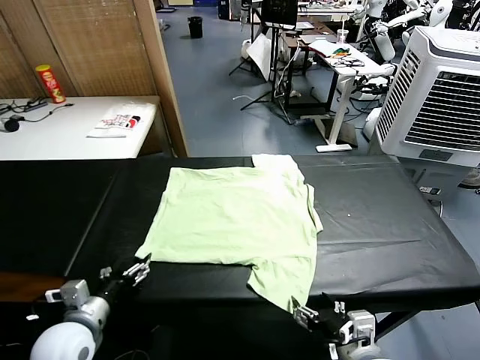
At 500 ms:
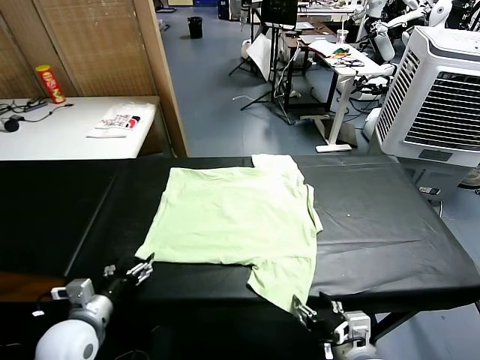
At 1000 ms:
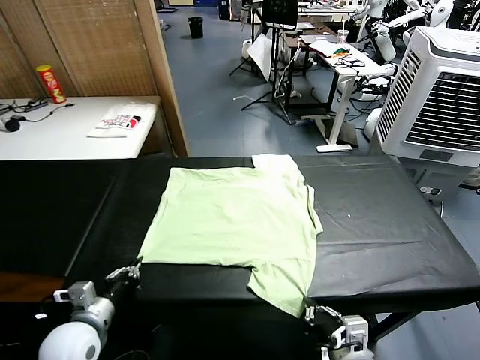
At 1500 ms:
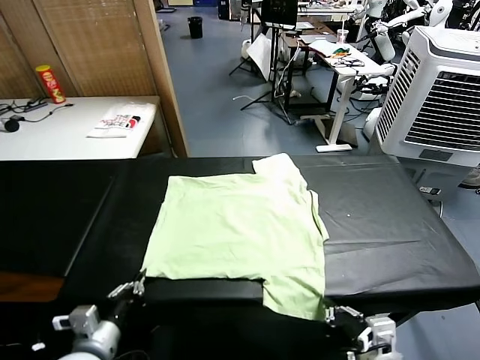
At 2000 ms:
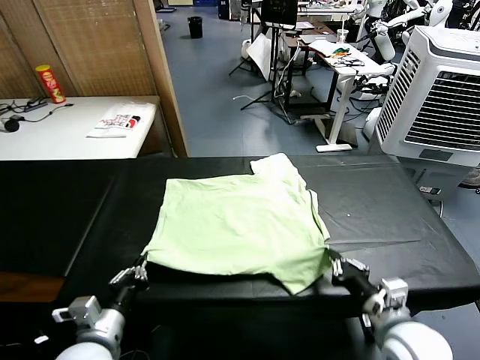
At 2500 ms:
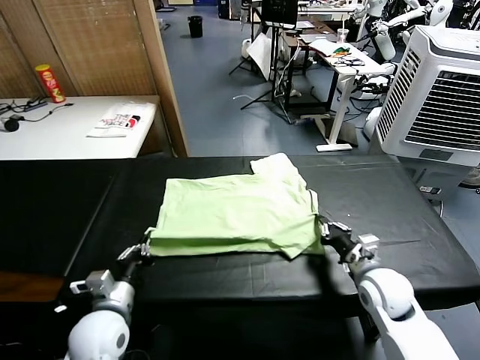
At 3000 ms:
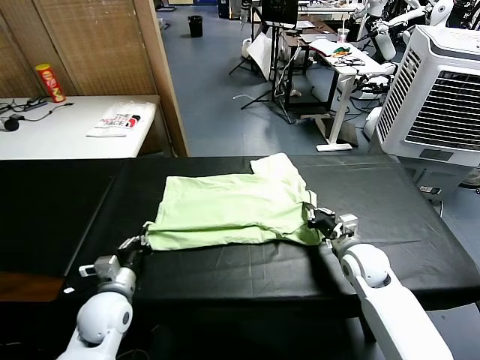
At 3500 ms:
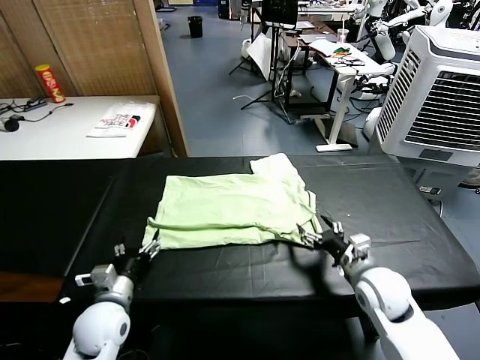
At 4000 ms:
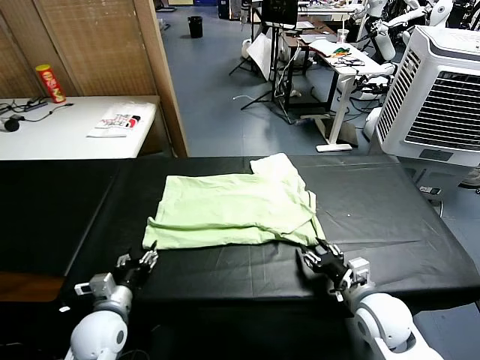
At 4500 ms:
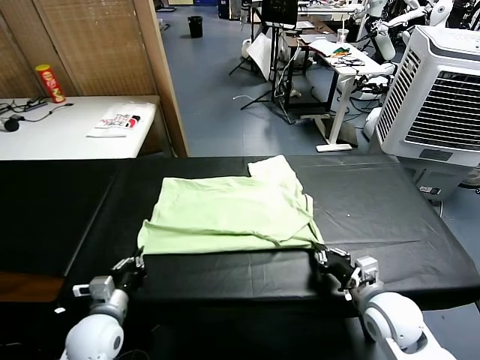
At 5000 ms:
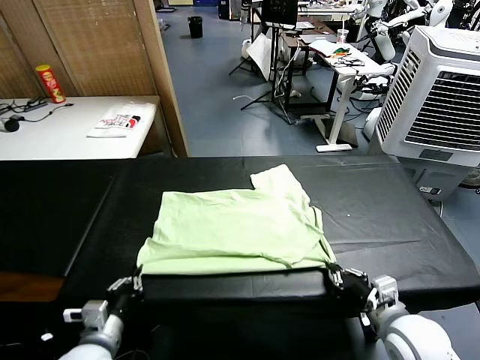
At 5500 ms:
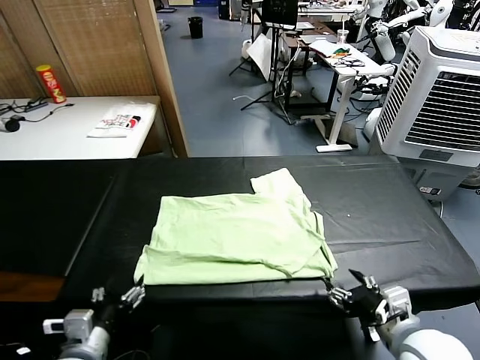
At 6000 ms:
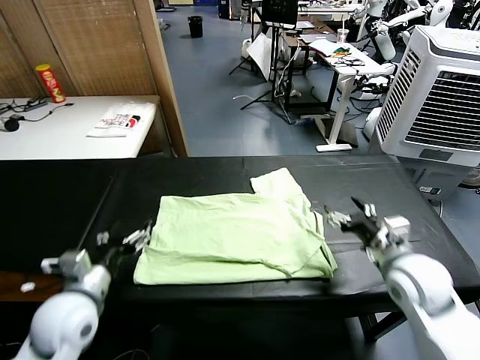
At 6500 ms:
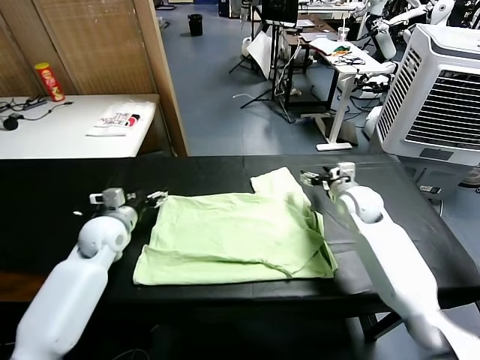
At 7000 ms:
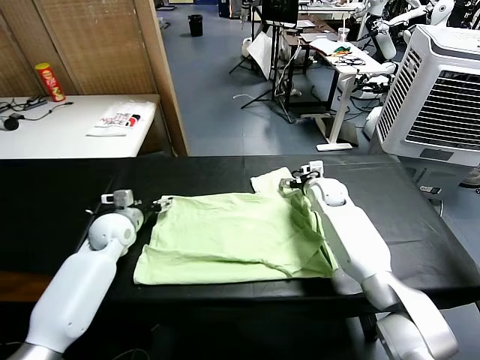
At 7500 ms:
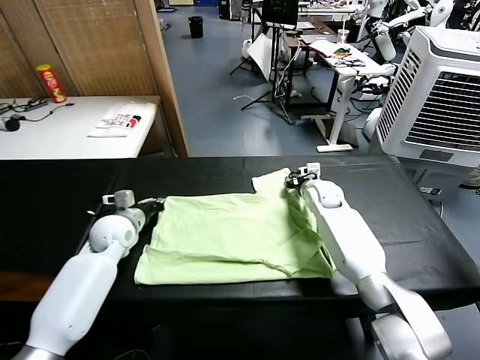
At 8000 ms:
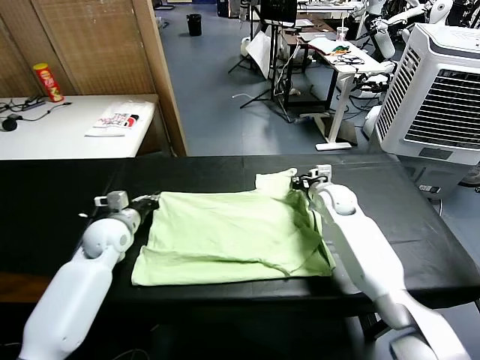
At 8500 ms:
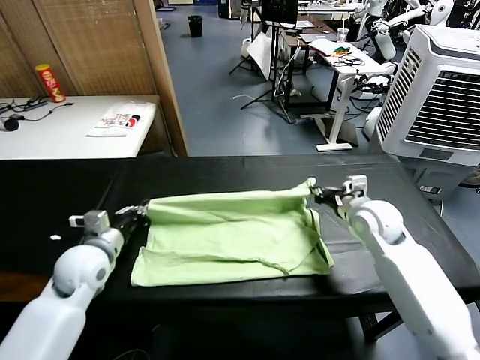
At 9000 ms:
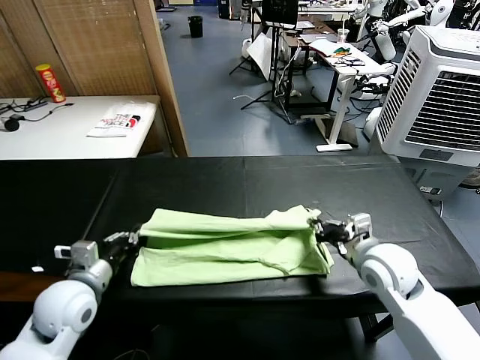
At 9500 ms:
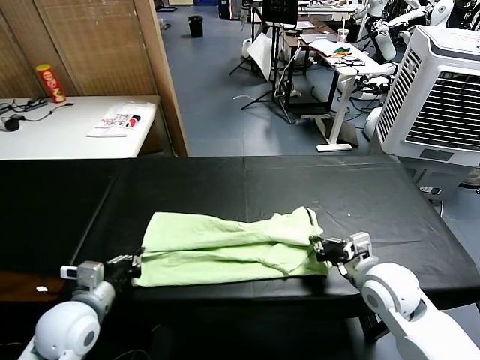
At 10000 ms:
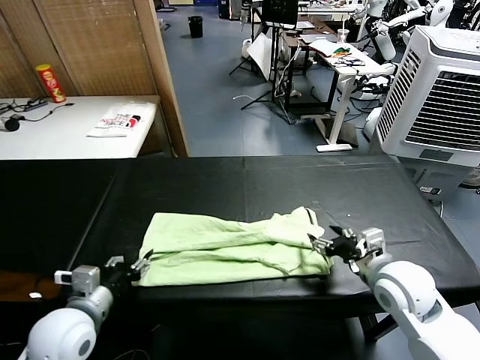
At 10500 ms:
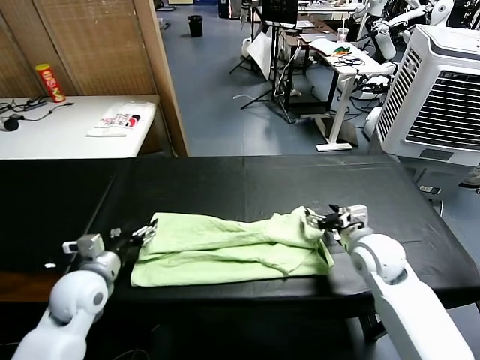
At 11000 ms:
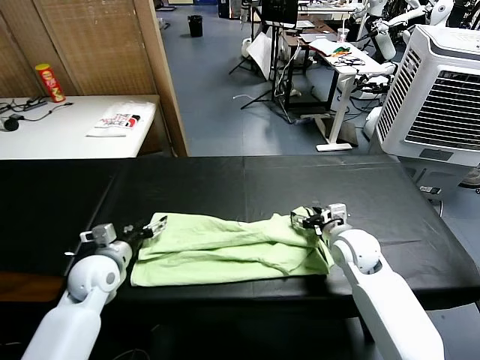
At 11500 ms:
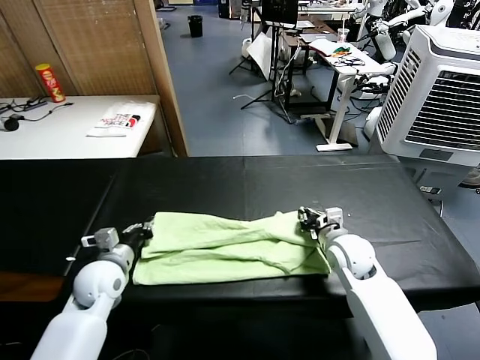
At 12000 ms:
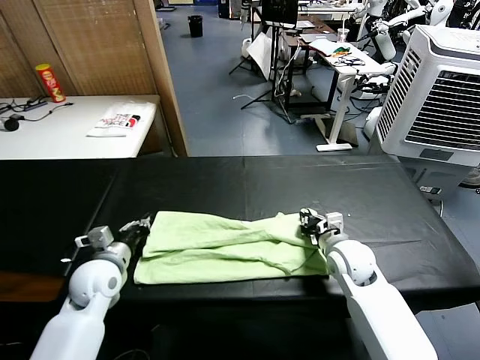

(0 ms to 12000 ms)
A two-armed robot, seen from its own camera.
Task of the whole recording: fold and organize the clothes.
Step, 0 ms - 1000 ms: use both grippers simultaneously to clamp the lower edge of the clothing fabric.
Step, 1500 ms - 3000 ms: use both grippers to drag the lower edge of the fabric forward and fold it over the upper edge.
Step, 3500 ms - 5500 ms: Drag the clothes downward with both gripper.
Step, 6000 ms - 7500 ms: use both grippers simultaneously to clamp the upper edge of the clothing fabric.
Step, 8000 ms - 10000 ms: use both grippers to drag the upper edge of the fabric backward and fold it over the lower edge.
2000 ms - 4000 ms: The right gripper reaches some 15 cm forward, then returns, and opens and closes again. The left gripper shifts approximately 10 cm downward and forward, and opens its fingers.
4000 ms - 6000 ms: The right gripper travels forward and upward by about 15 cm, and opens up; the left gripper heads upward, covering approximately 10 cm, reaches about 10 cm backward, then returns, and opens its fingers.
6000 ms - 8000 ms: The two grippers go some 15 cm forward. The left gripper closes up, while the right gripper closes.
8000 ms - 10000 ms: Both grippers travel together backward, some 20 cm. The right gripper opens up; the left gripper opens up.
10000 ms - 12000 ms: The left gripper is displaced forward by some 10 cm, and closes up. The right gripper goes about 15 cm forward, downward and to the left, and closes up.

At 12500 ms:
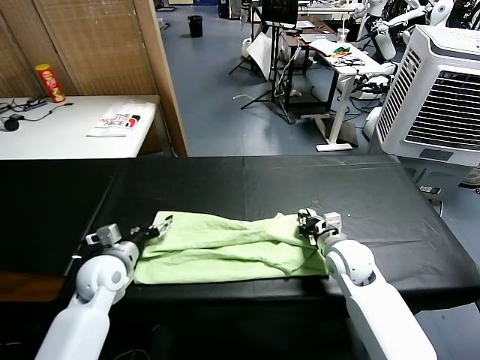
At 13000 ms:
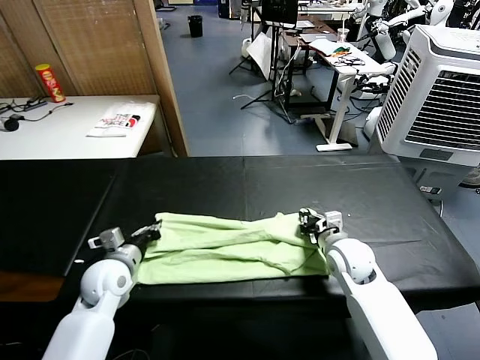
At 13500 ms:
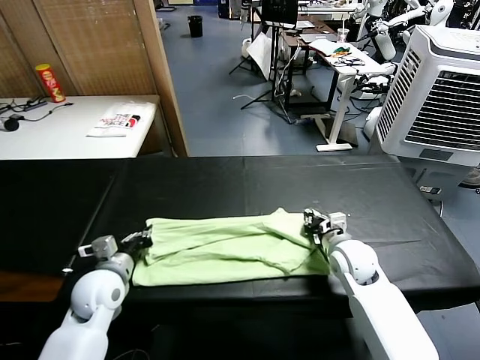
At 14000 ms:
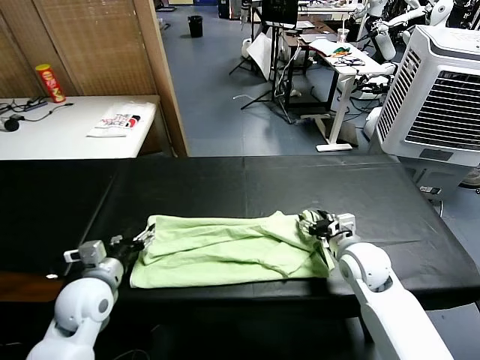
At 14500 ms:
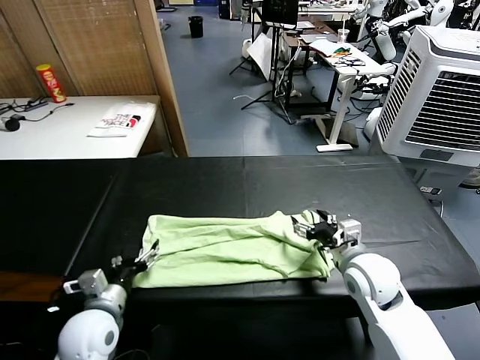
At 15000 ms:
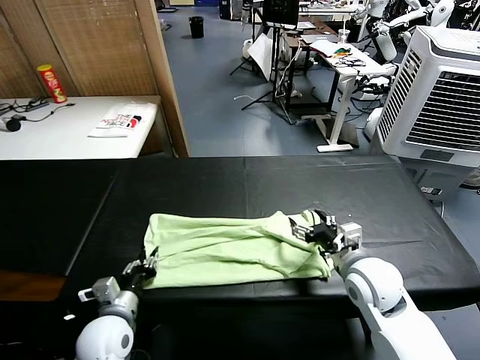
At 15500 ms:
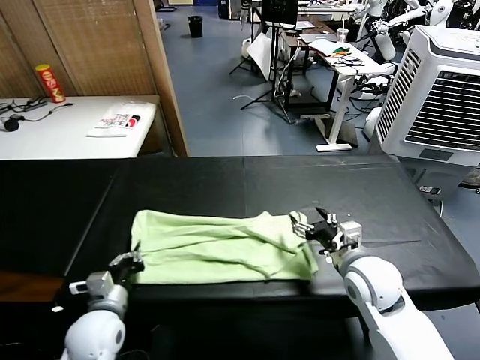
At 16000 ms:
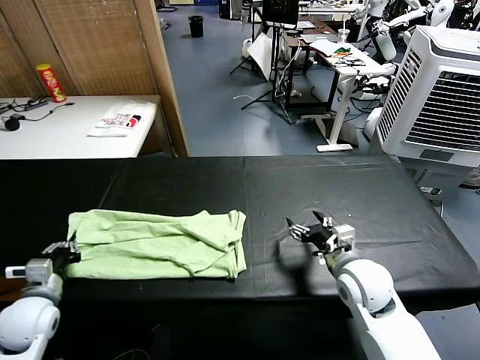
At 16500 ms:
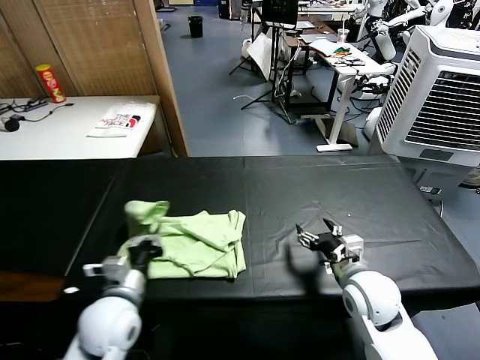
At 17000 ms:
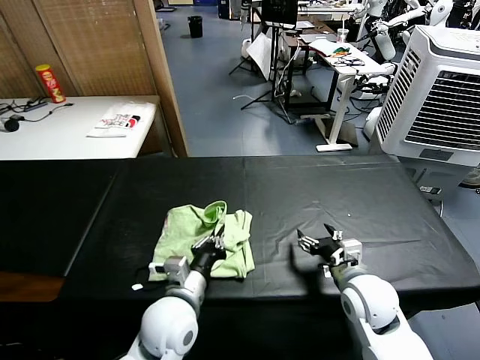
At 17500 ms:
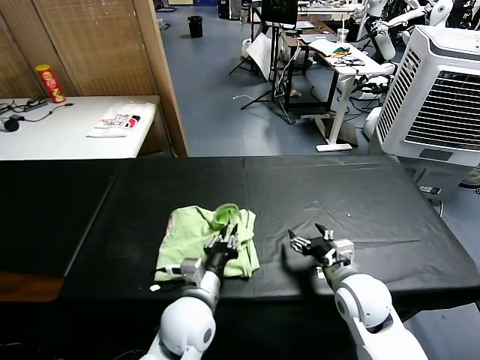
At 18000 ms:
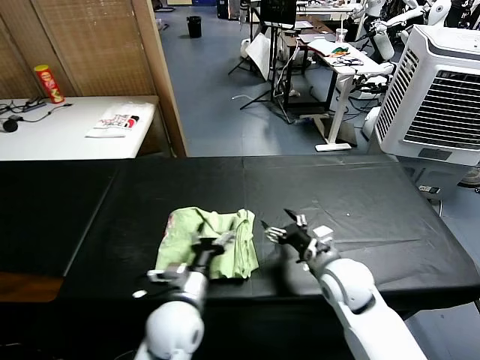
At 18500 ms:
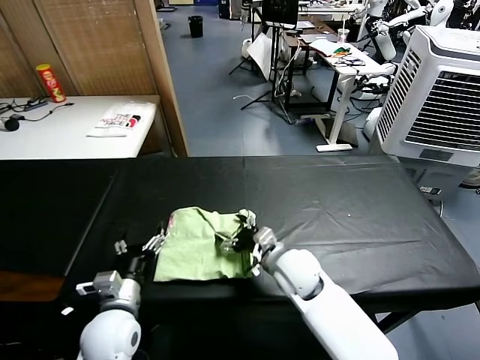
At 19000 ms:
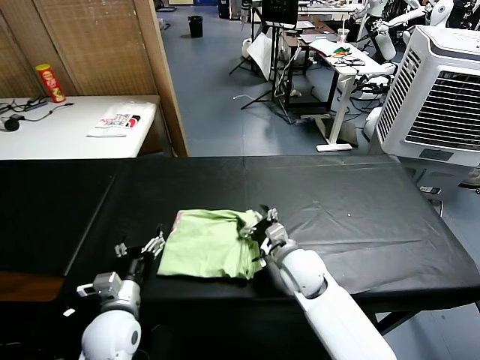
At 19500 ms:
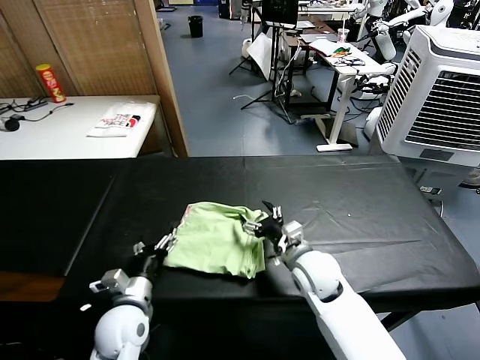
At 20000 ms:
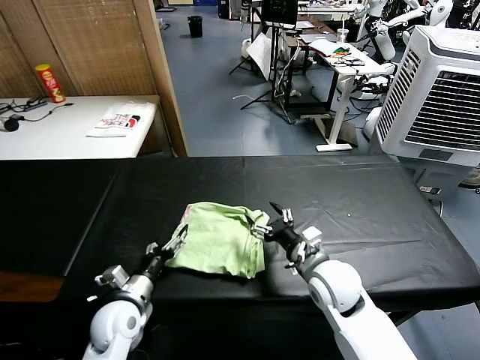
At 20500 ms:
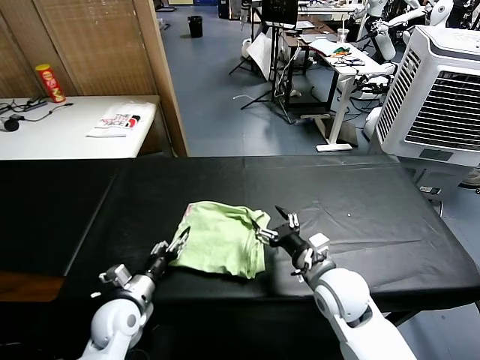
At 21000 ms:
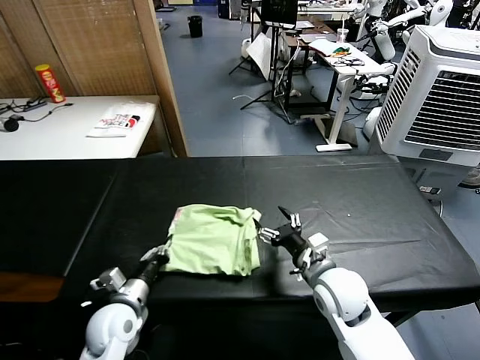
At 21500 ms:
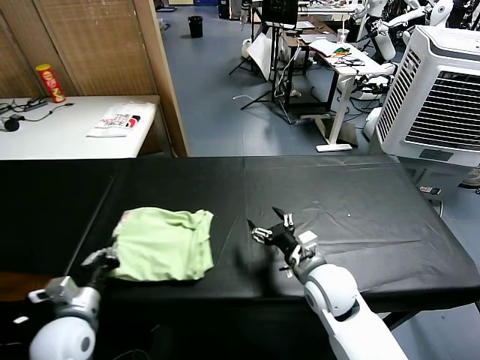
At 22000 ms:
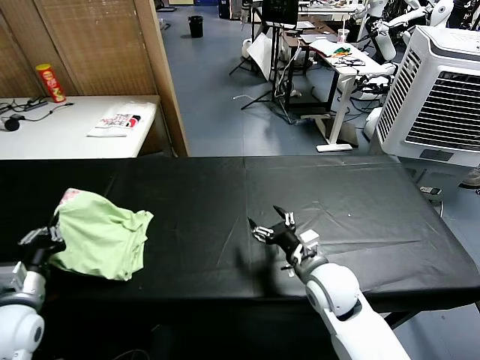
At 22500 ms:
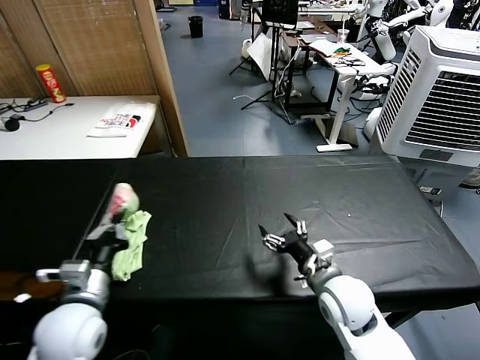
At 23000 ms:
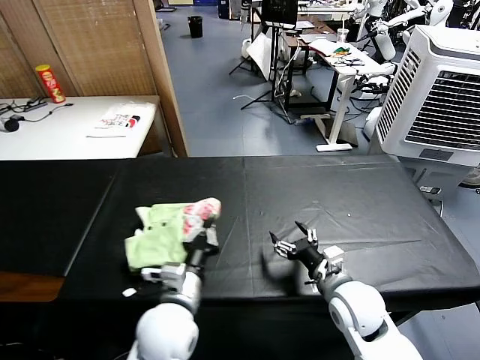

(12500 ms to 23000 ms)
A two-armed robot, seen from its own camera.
Task of the whole recording: fold and organize the clothes.
Step, 12500 ms - 15000 ms: use the left gripper to clamp the left edge of the fabric.
Step, 15500 ms - 17500 ms: use the left gripper to drag the left edge of the fabric to the left and folds it over the right edge.
12500 ms - 14500 ms: The left gripper moves backward, some 10 cm, and closes and opens again. Meanwhile the right gripper shifts some 10 cm backward and upward, and opens up.
14500 ms - 16500 ms: The left gripper reaches approximately 15 cm to the left, then returns, and closes up.
16500 ms - 19000 ms: The right gripper is displaced to the left and forward by about 15 cm, while the left gripper moves about 15 cm to the right and comes back, and opens its fingers.
19000 ms - 21000 ms: The left gripper closes up, while the right gripper shifts roughly 10 cm backward and to the right.
21000 ms - 23000 ms: The left gripper moves to the right and upward, some 15 cm.

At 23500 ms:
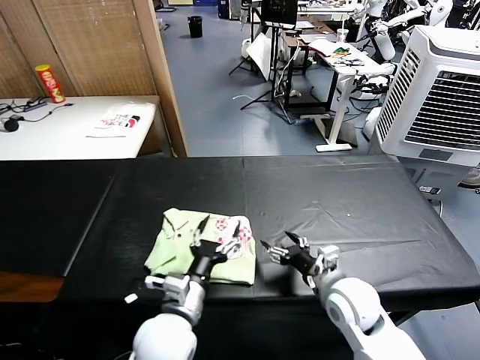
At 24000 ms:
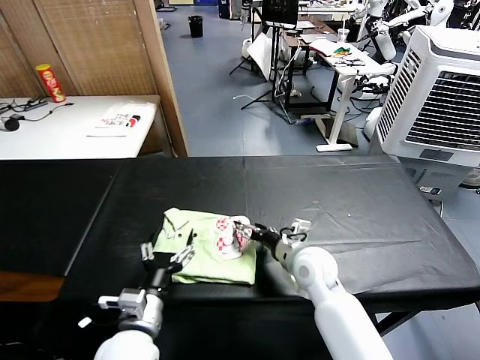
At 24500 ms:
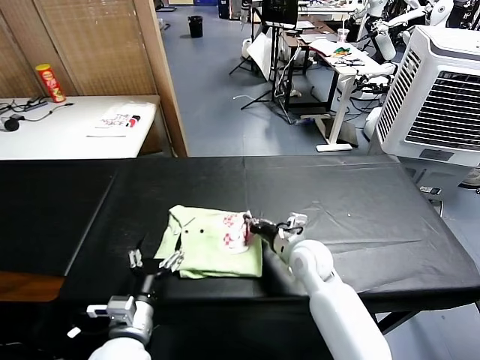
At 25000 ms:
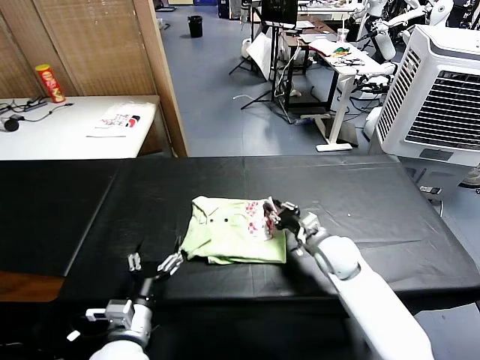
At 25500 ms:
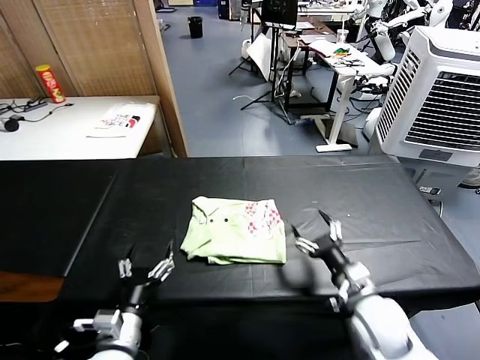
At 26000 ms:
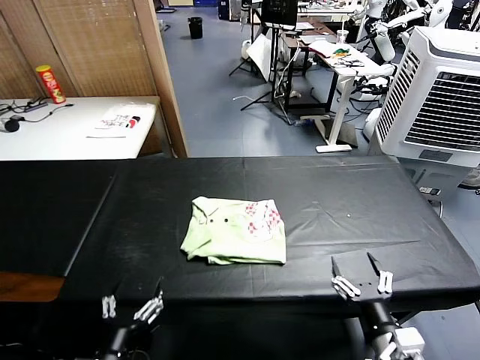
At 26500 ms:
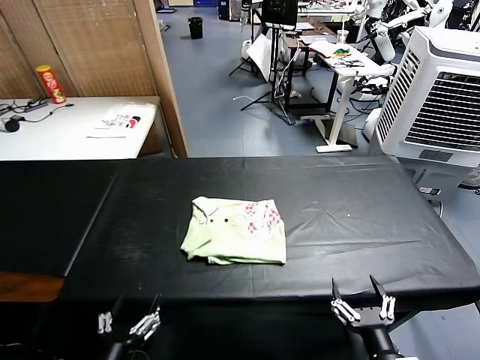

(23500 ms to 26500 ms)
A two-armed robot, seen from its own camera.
Task of the whole recording: fold and organize the clothes.
Step, 23500 ms - 25000 ms: Drag the clothes to the center of the table.
23500 ms - 25000 ms: The right gripper shifts about 10 cm forward, and closes up; the left gripper moves to the left, approximately 10 cm.
25000 ms - 26500 ms: The left gripper moves backward, about 10 cm. Meanwhile the right gripper shifts some 35 cm backward, and opens.
